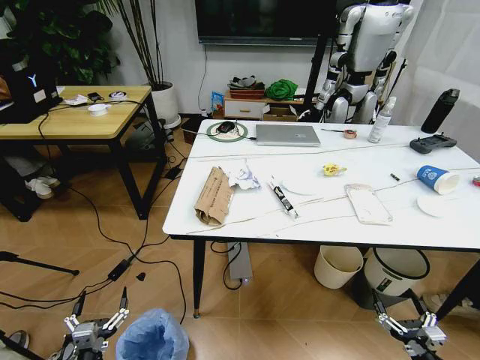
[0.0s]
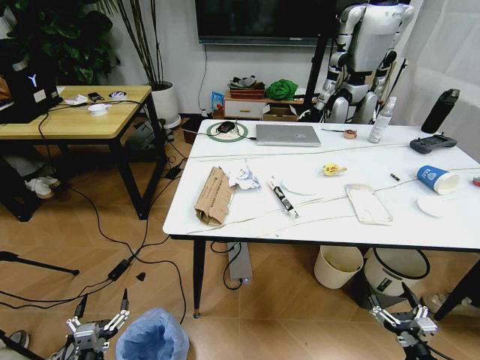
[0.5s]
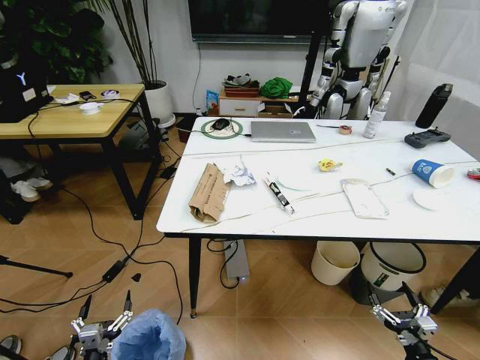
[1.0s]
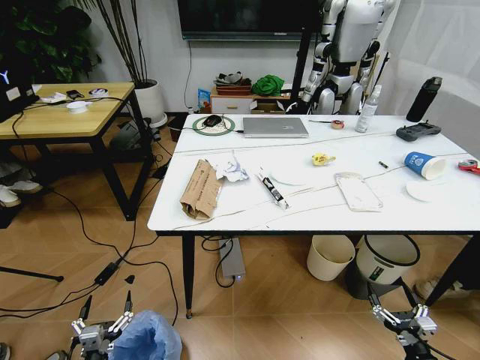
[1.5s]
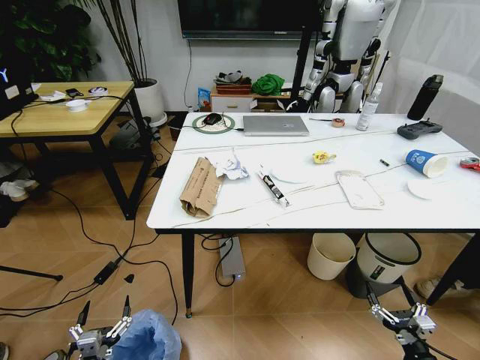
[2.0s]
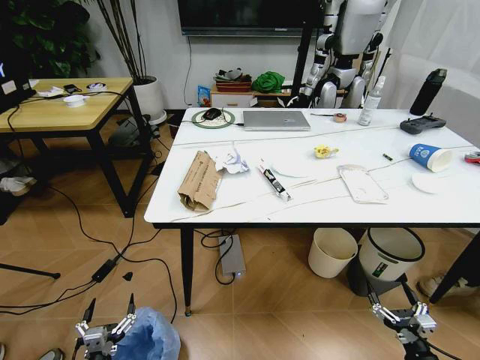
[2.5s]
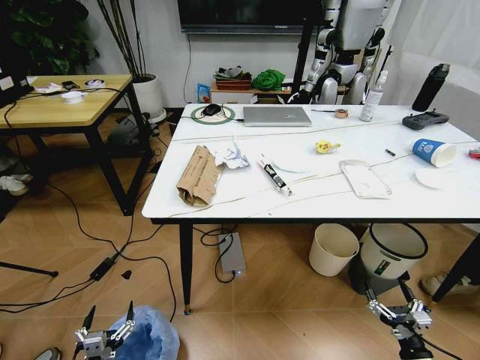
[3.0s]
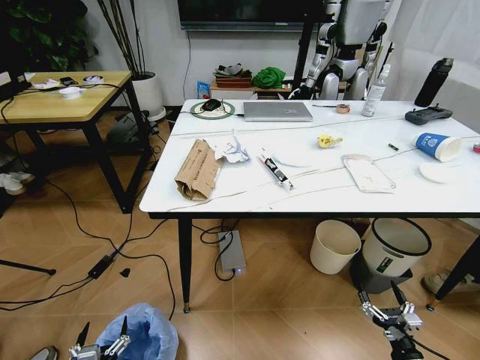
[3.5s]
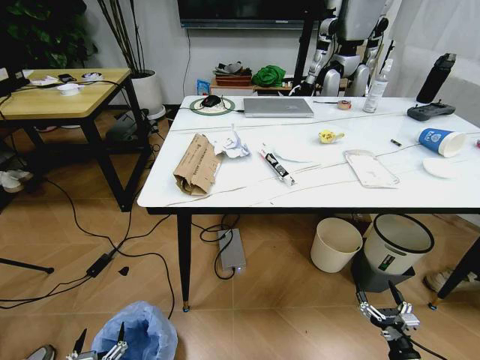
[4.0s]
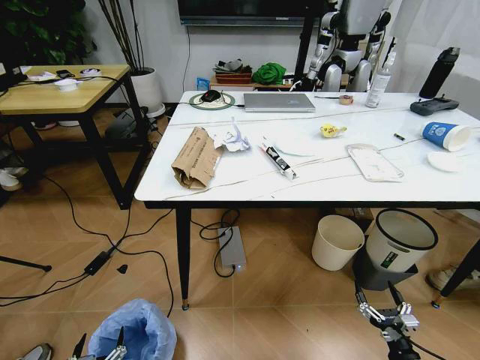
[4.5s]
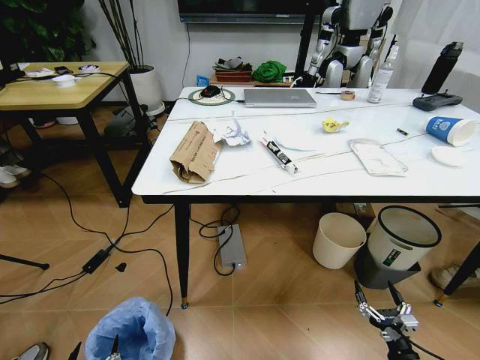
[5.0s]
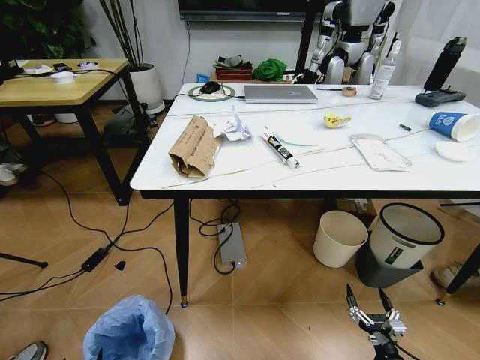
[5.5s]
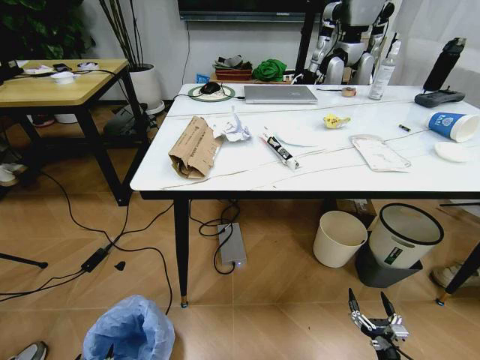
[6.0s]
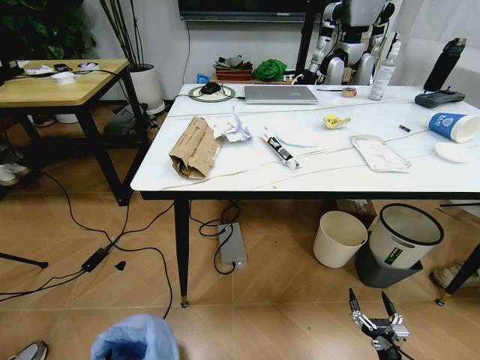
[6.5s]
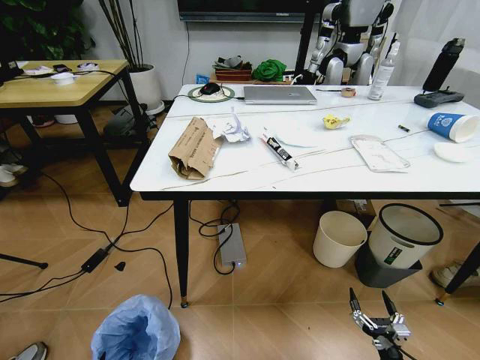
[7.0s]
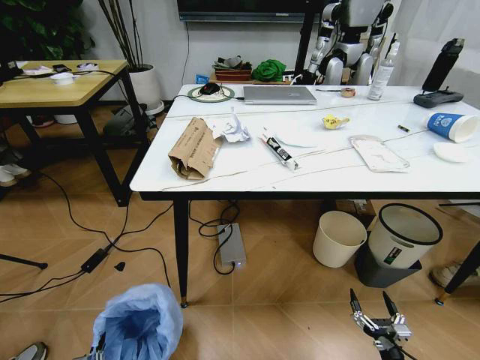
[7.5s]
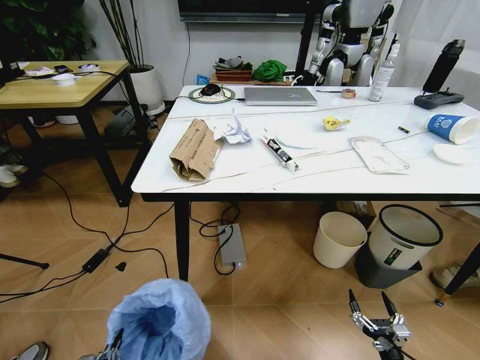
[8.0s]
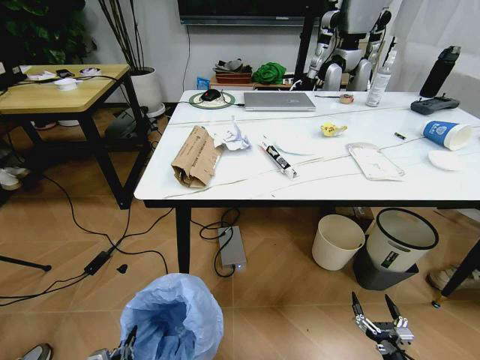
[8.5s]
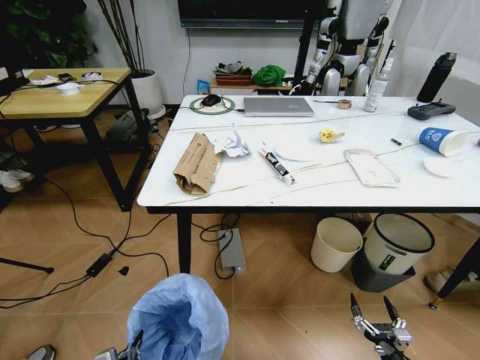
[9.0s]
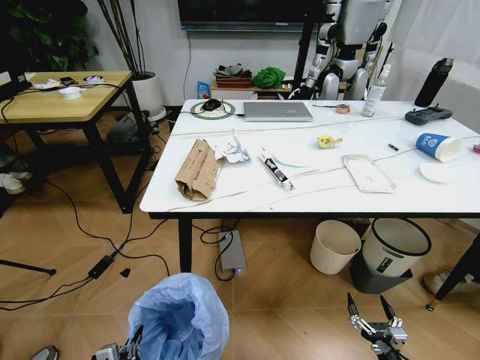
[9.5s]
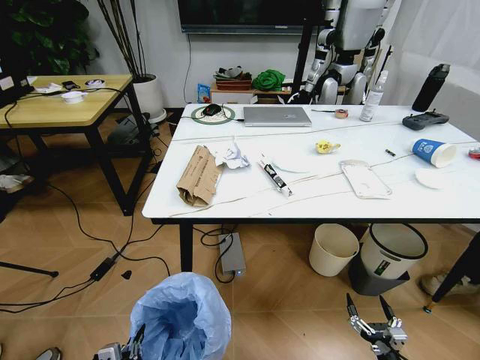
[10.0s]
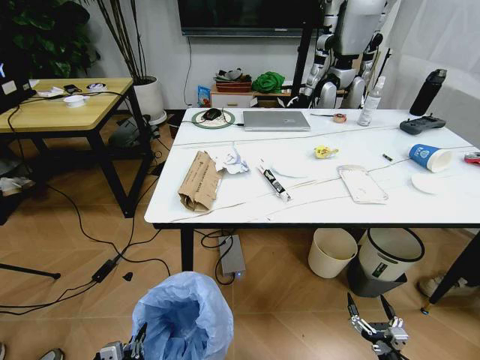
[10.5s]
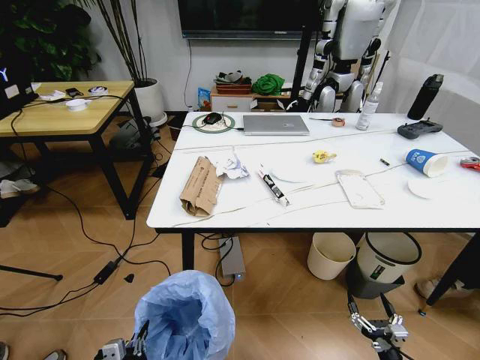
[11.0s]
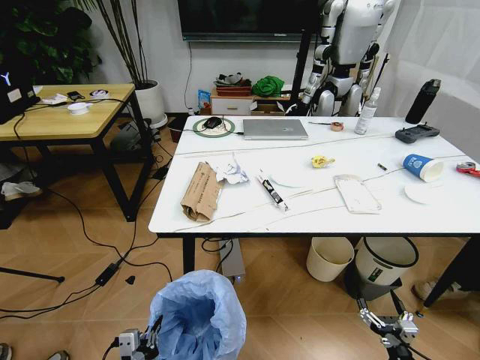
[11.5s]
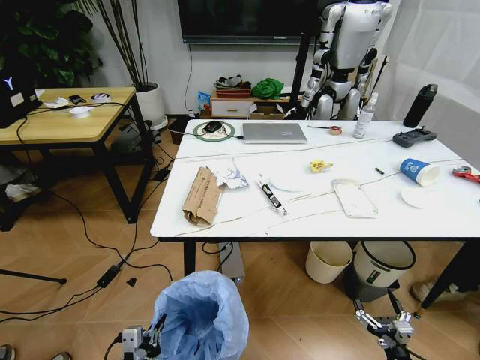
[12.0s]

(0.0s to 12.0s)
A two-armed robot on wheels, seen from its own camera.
Task of the whole recording: Pick up the trash bin and place the trash from the table into it.
2.0s - 4.0s: The left gripper changes place by about 5 cm.
4.0s - 6.0s: The left gripper goes approximately 10 cm to the left and downward.
6.0s - 8.0s: The left gripper travels upward and to the right by some 10 cm, and closes its fingers.
8.0s - 10.0s: The left gripper heads to the right, covering roughly 5 cm.

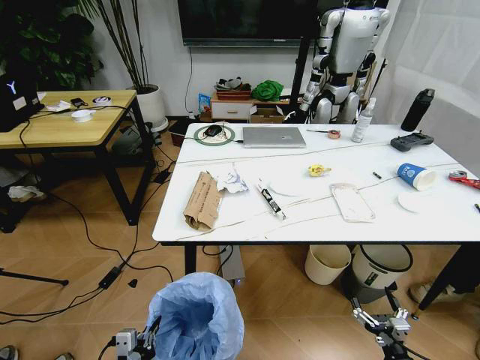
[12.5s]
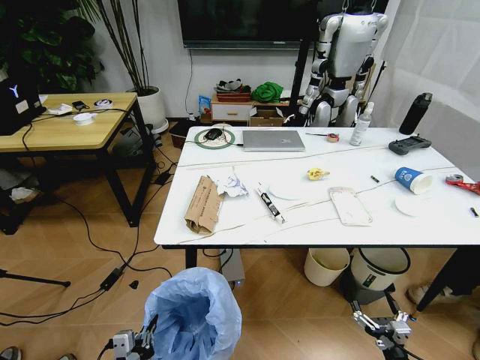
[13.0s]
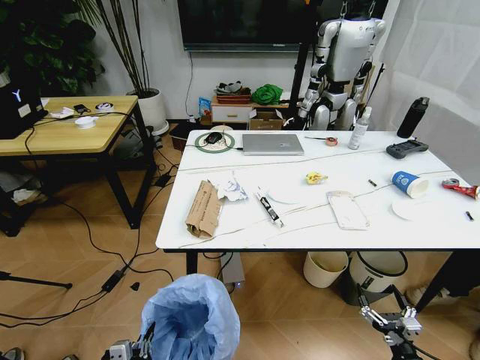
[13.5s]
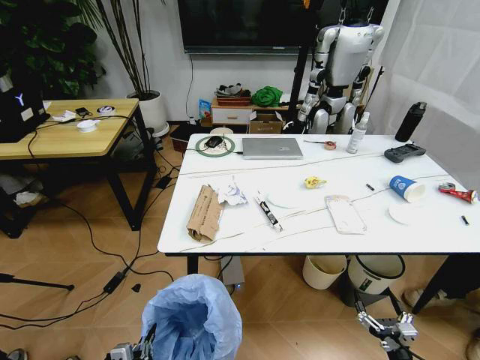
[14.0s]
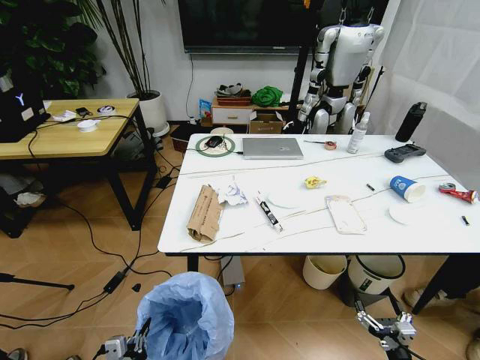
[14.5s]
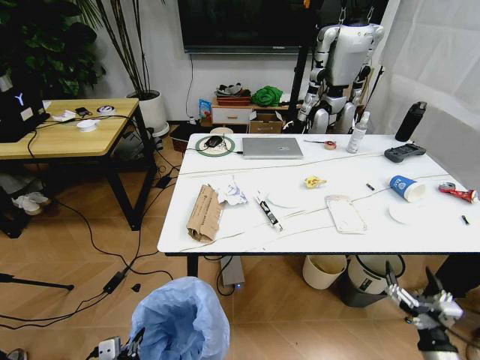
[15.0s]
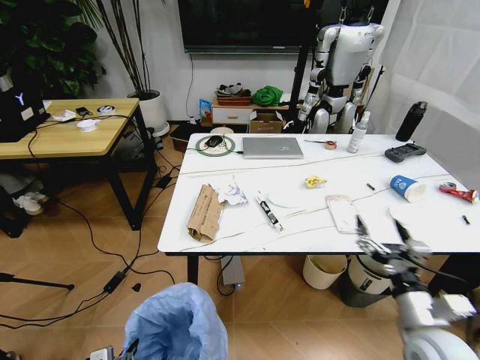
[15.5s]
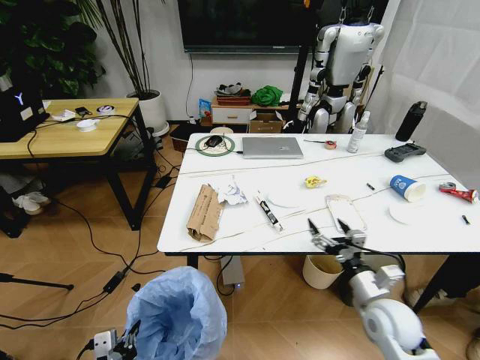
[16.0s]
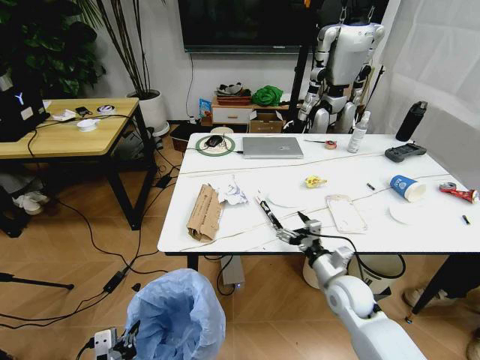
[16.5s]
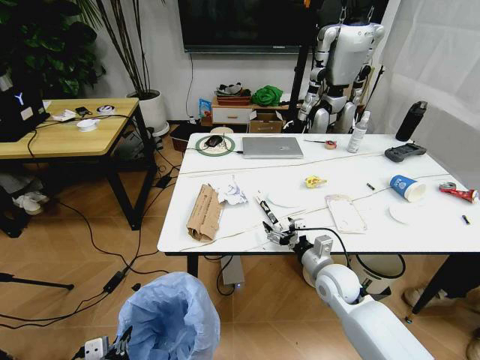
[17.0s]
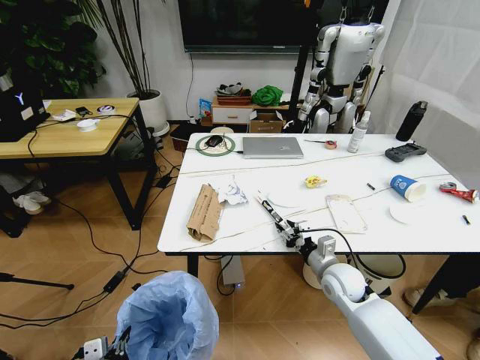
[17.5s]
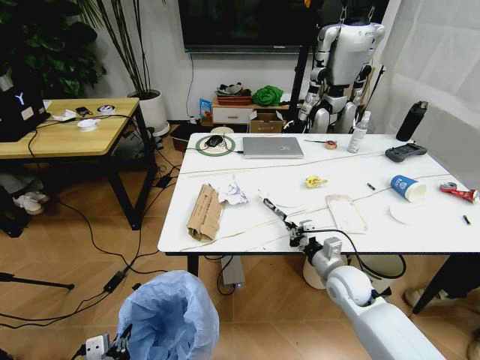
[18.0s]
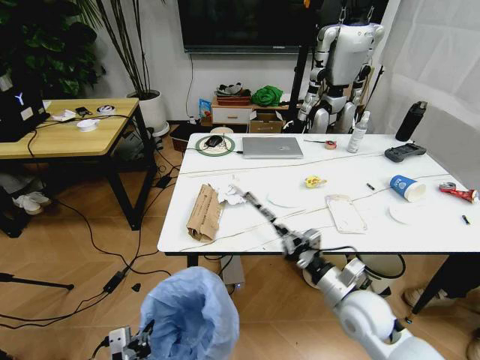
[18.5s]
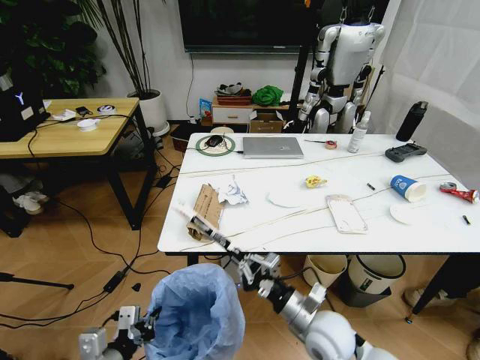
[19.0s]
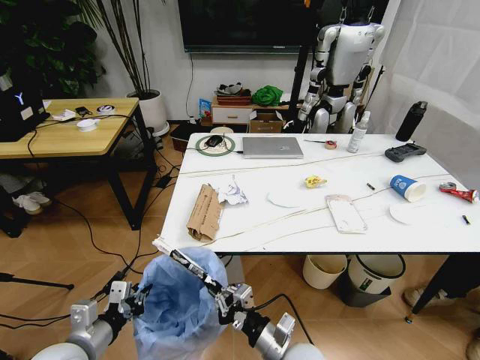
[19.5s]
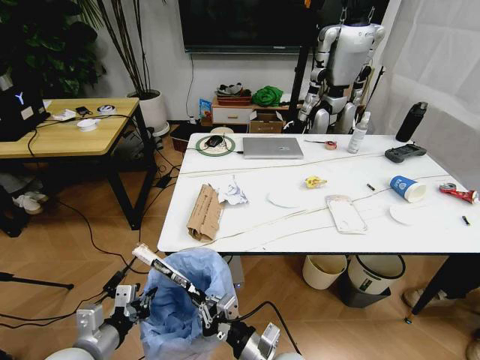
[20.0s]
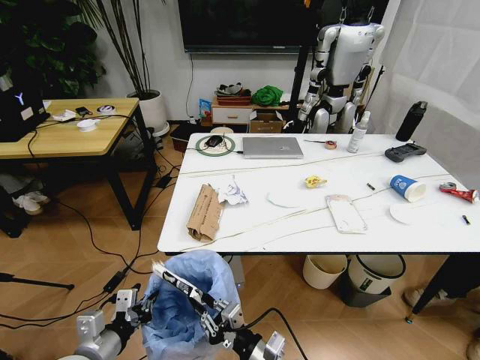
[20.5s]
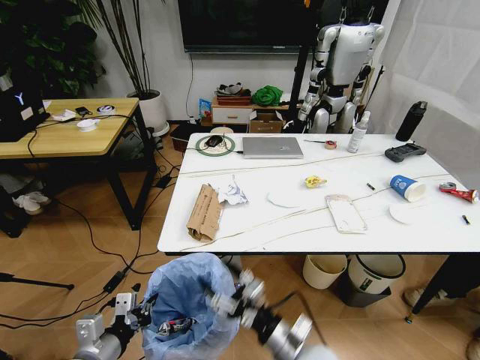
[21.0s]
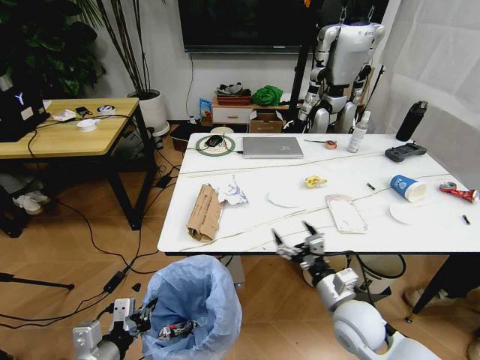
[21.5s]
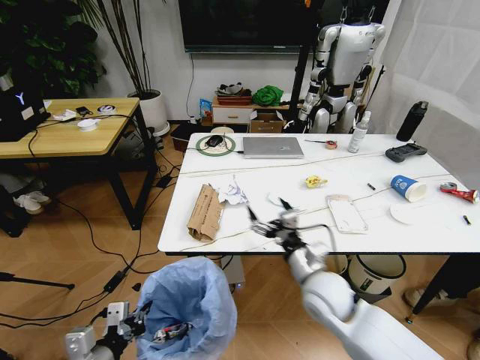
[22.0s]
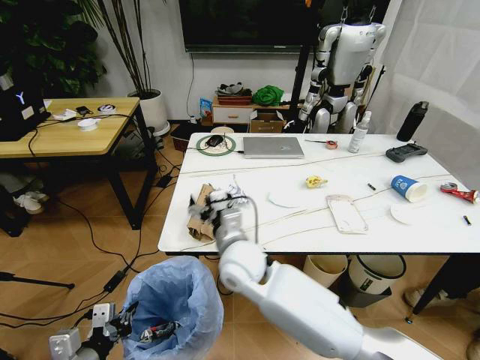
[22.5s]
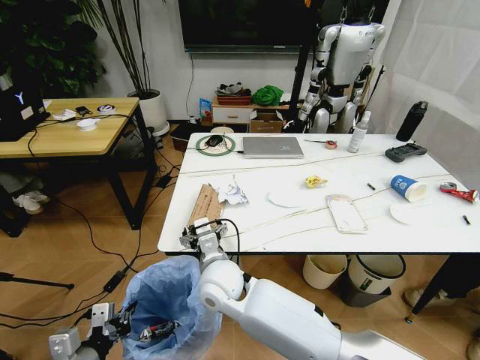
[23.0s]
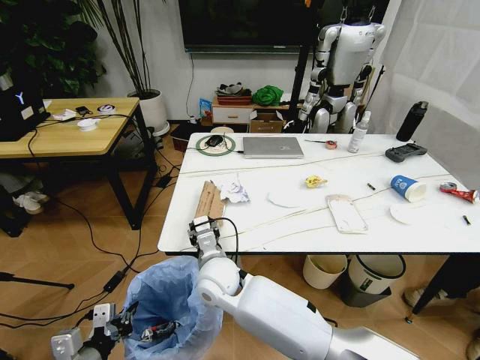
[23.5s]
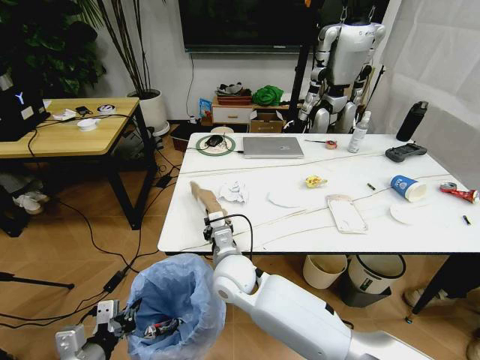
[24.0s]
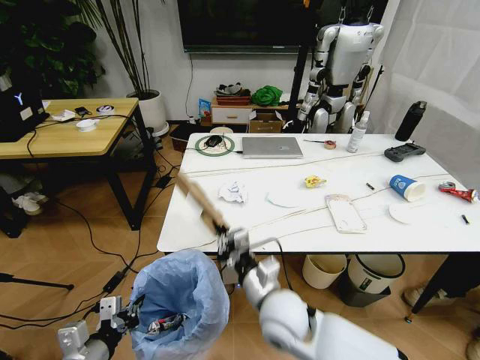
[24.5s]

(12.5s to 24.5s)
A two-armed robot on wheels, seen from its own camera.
Task of the whole recording: Pick up the trash bin and place the trash from the table into it.
14.5s - 16.5s: The right gripper travels forward, to the left and upward by some 30 cm. The left gripper heads upward, covering roughly 5 cm.
16.5s - 18.5s: The right gripper is displaced backward by some 5 cm, and closes up.
18.5s - 20.5s: The right gripper travels to the left, backward and downward by some 20 cm; the left gripper is displaced forward and upward by approximately 10 cm.
20.5s - 22.5s: The right gripper heads forward, upward and to the left, covering about 25 cm, and opens its fingers.
22.5s - 24.5s: The right gripper goes approximately 15 cm backward, to the right and downward, and closes up.

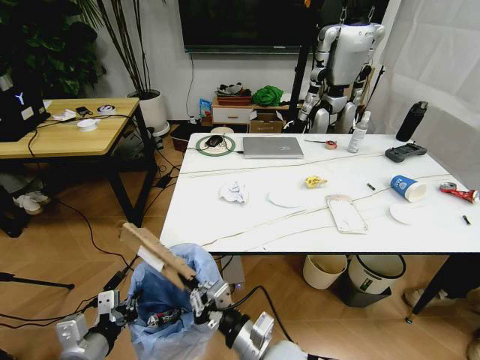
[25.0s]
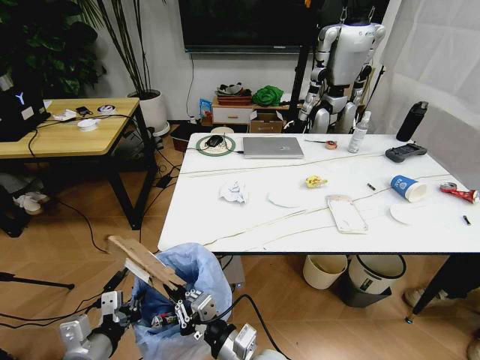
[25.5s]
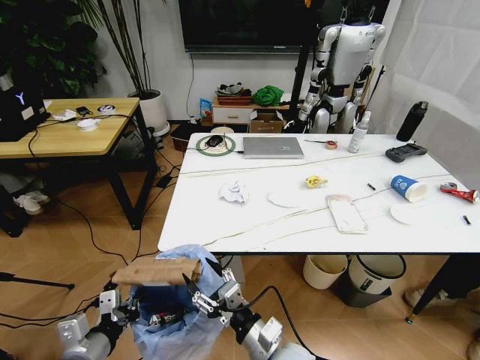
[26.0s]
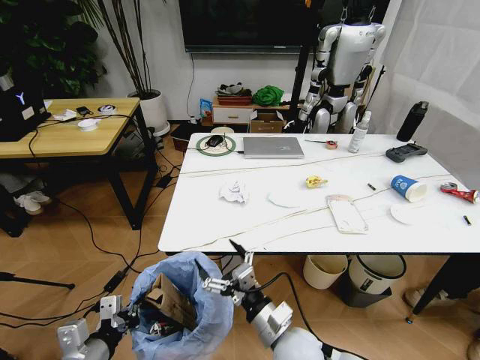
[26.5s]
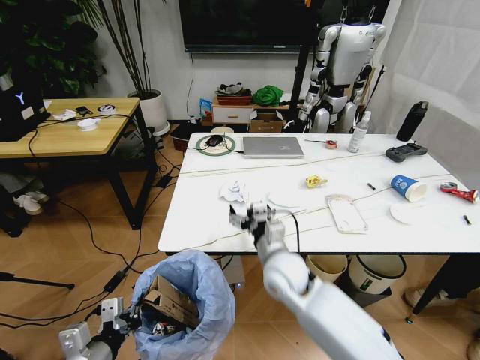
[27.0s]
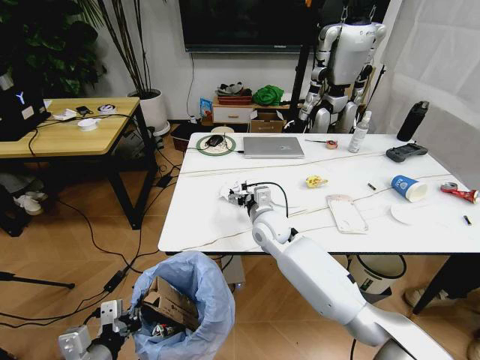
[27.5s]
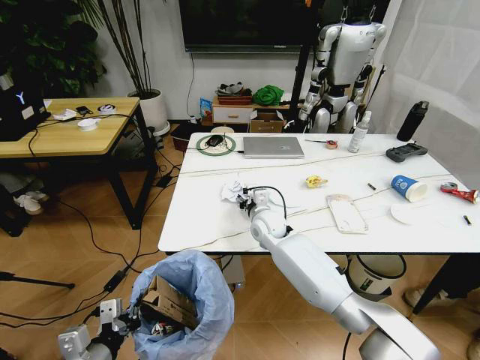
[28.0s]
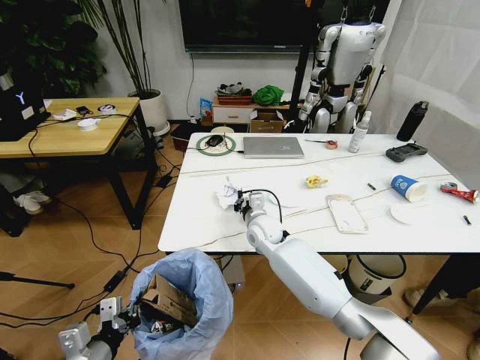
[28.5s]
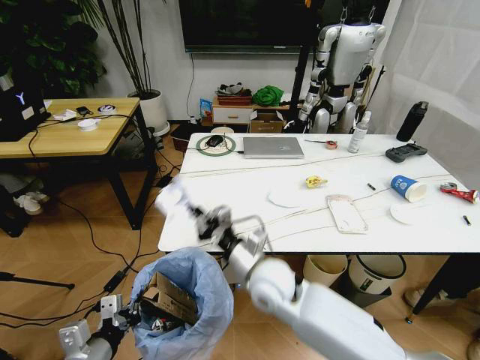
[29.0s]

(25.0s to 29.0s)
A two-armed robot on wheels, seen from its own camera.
Task of the whole recording: Pick up the trash bin and place the trash from the table into it.
25.0s - 27.0s: The right gripper goes approximately 15 cm forward, and opens up.
27.0s - 29.0s: The right gripper travels forward and back again, some 15 cm each way, and closes its fingers.
